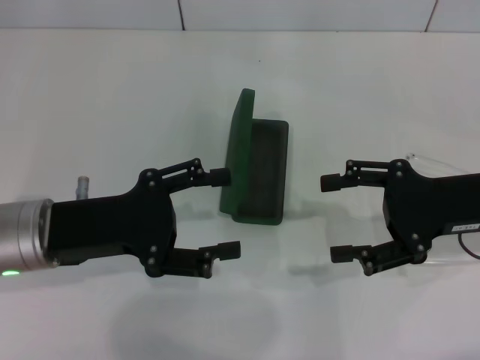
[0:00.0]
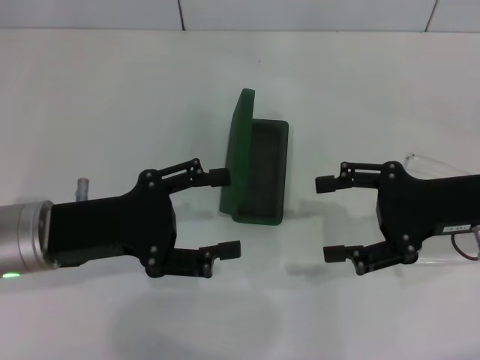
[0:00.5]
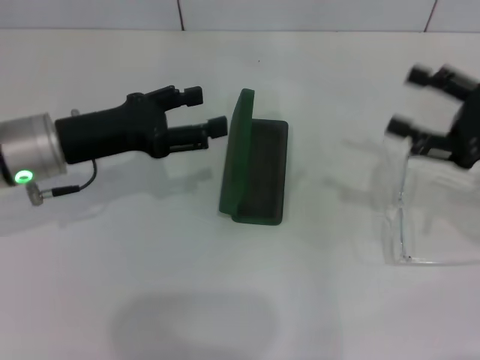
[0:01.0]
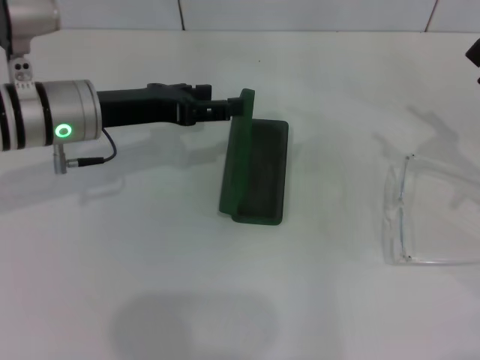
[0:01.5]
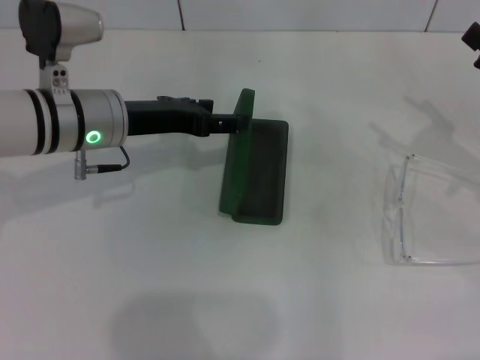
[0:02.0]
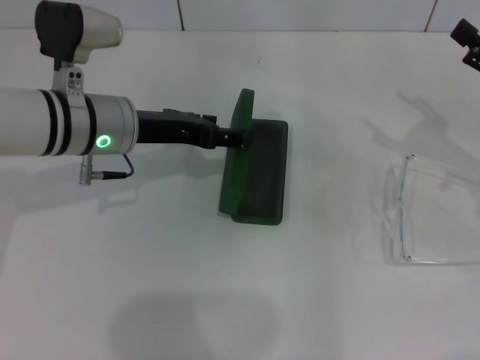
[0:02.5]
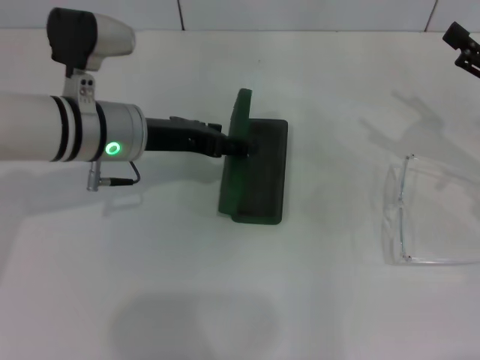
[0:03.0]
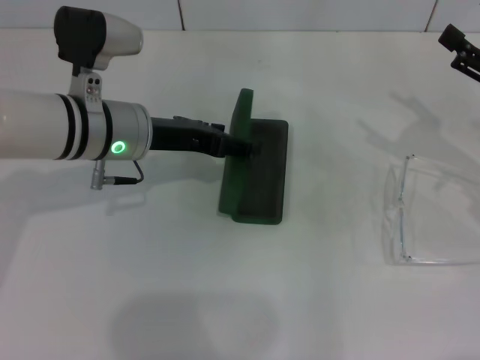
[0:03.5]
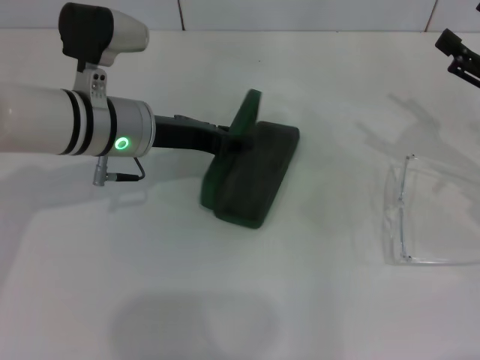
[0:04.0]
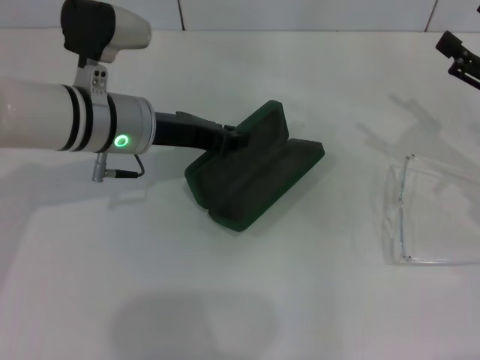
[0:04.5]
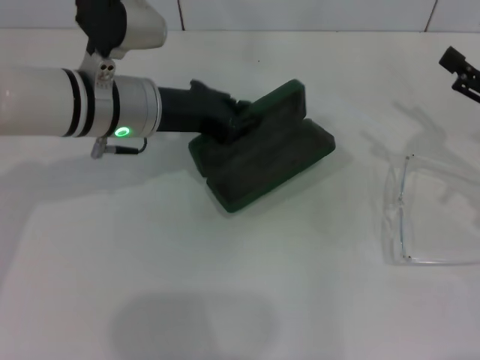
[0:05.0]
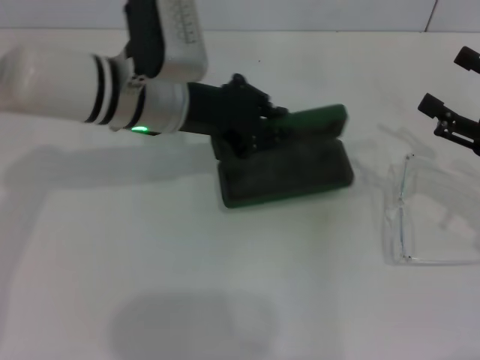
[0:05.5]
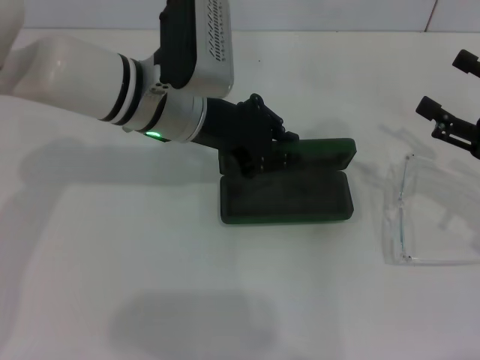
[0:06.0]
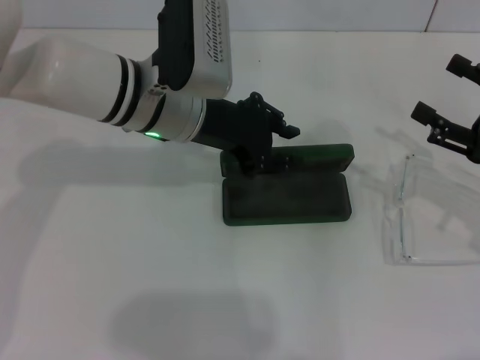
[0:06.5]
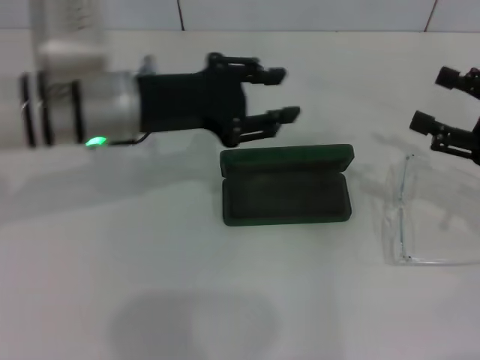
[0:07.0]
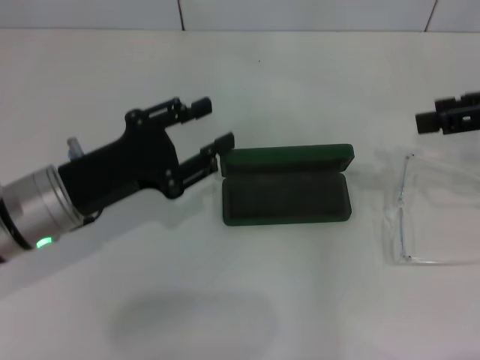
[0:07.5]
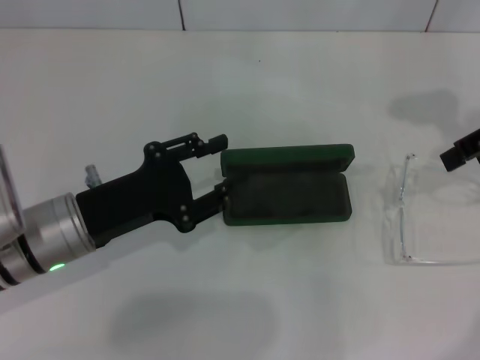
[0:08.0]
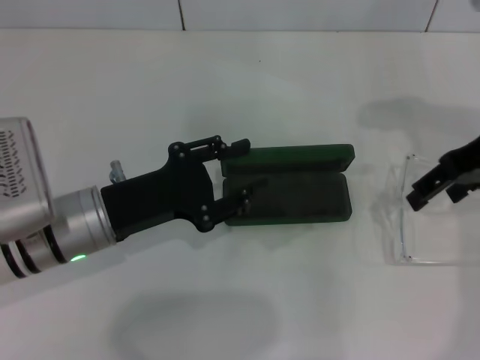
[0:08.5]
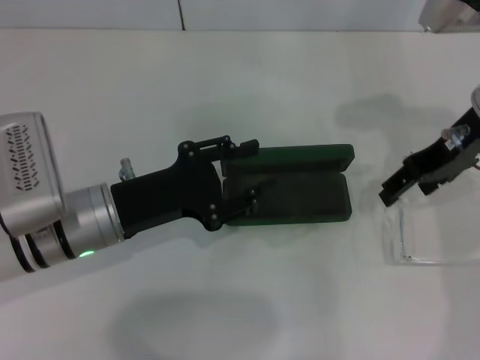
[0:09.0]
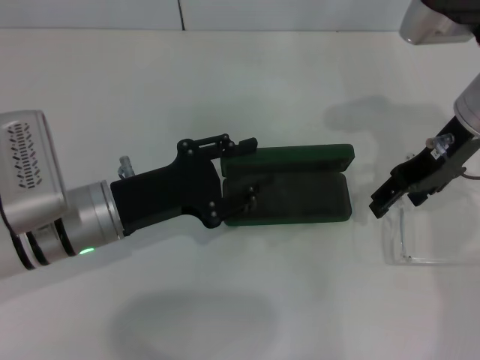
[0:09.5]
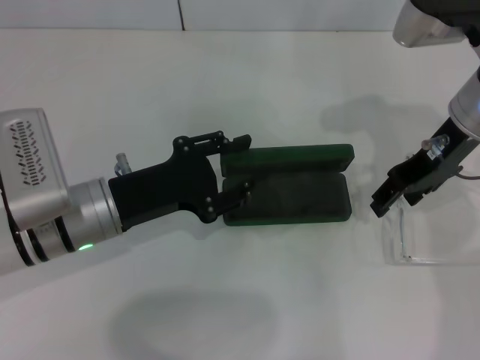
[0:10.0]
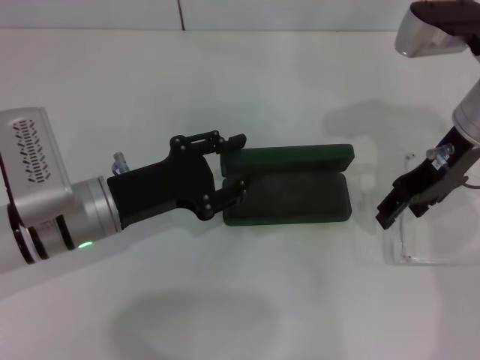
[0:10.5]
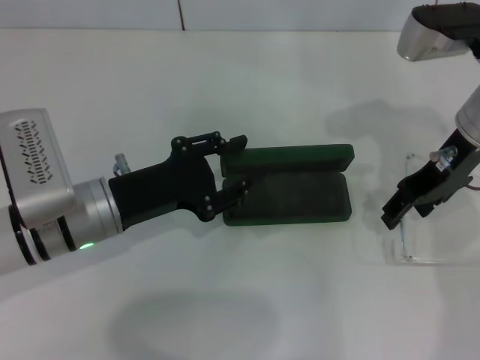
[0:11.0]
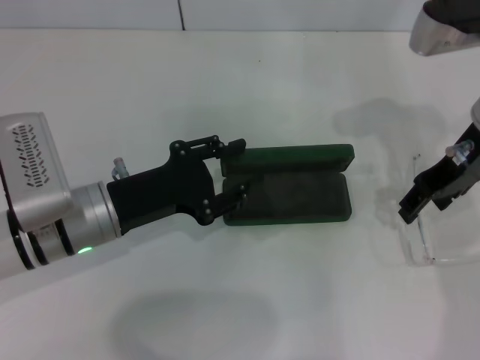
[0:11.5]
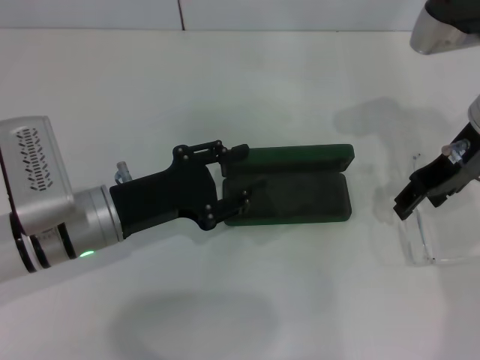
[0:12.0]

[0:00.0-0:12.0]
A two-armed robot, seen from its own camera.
Step, 0:00.0 to 0:04.5: Grab the glasses case with your left hand.
Step, 0:05.0 to 0:06.0: Place the glasses case in the center of the table with your left hand.
0:00.0 to 0:02.0: The right gripper moves to the right, some 10 cm. The left gripper is displaced forward and to the right by some 10 cm.
0:02.0 to 0:04.0: The grippers move only a little.
0:04.0 to 0:06.0: The left gripper goes about 5 cm to the right, and closes its fingers.
0:06.0 to 0:08.0: The right gripper moves upward and forward, about 15 cm, while the left gripper travels backward, to the left and downward by some 15 cm, and opens up.
0:08.0 to 0:10.0: The right gripper shifts some 10 cm to the left and downward.
0:10.0 to 0:12.0: The grippers make only small movements.

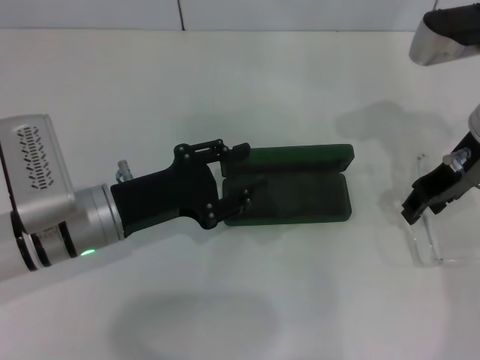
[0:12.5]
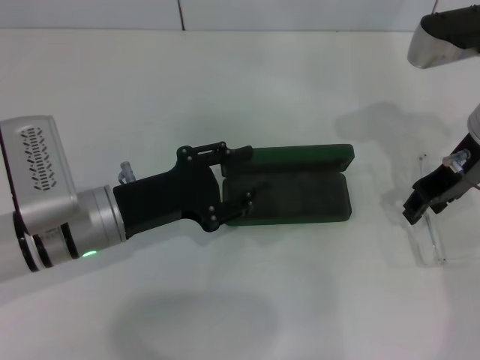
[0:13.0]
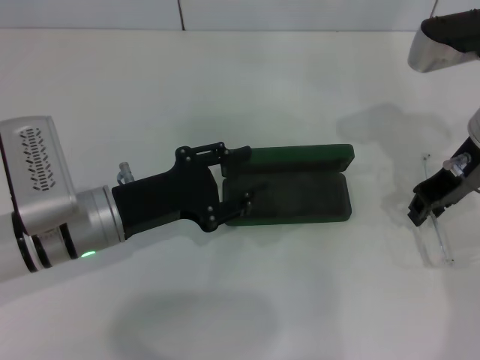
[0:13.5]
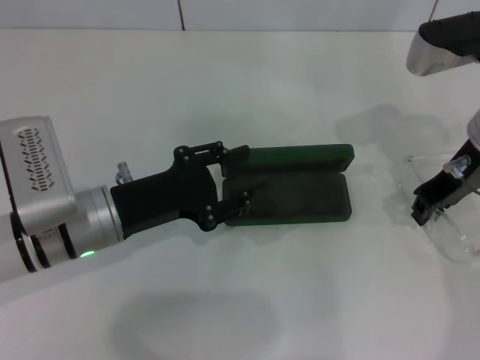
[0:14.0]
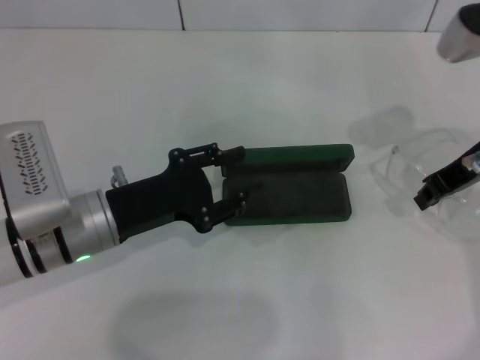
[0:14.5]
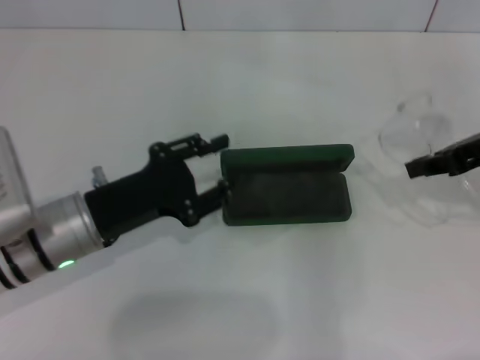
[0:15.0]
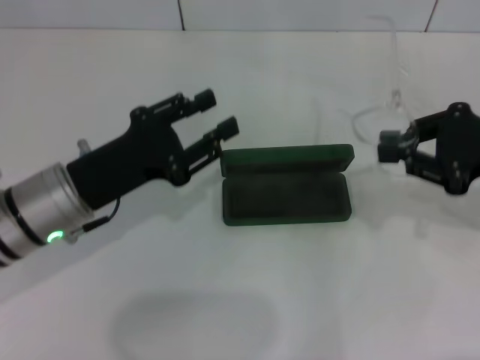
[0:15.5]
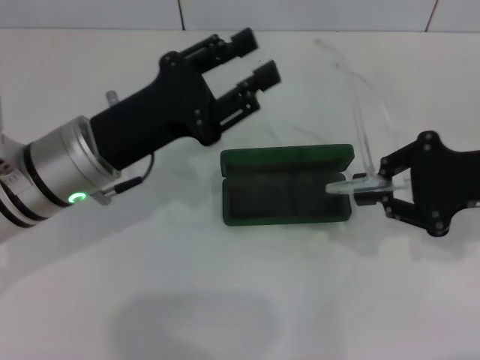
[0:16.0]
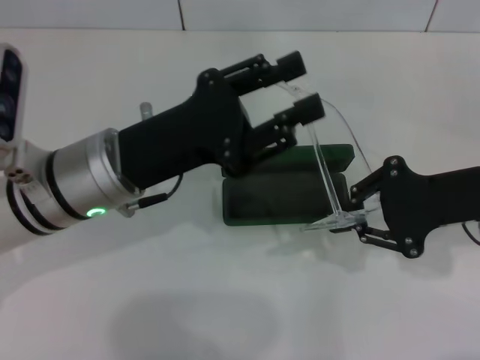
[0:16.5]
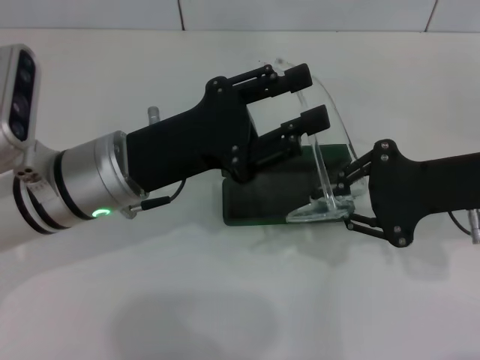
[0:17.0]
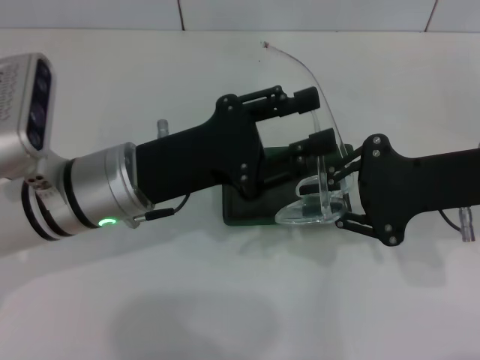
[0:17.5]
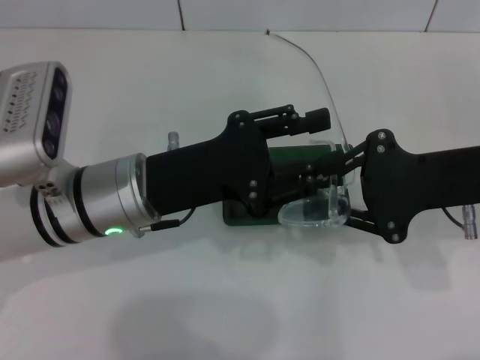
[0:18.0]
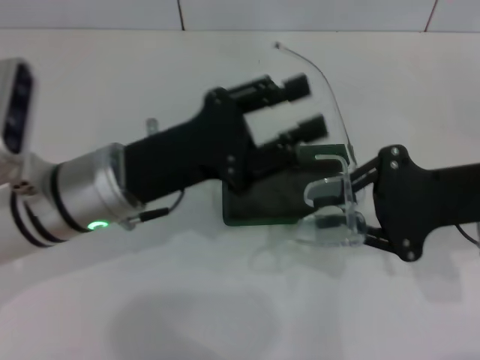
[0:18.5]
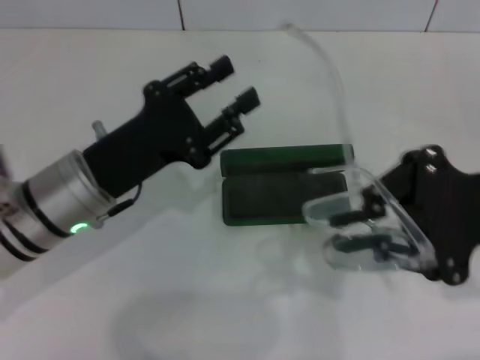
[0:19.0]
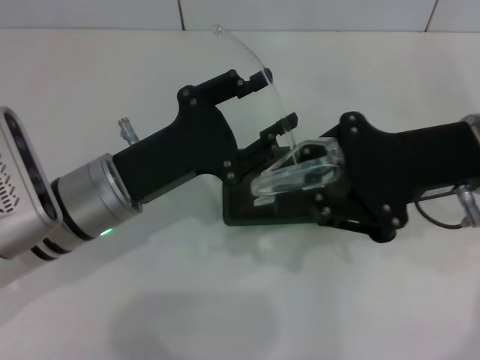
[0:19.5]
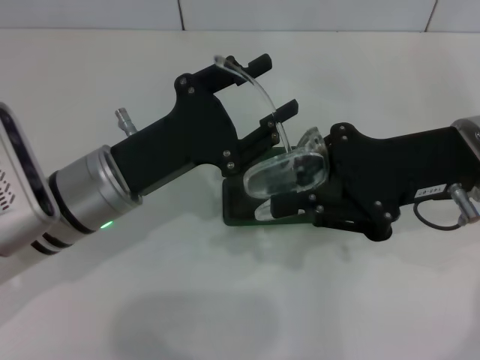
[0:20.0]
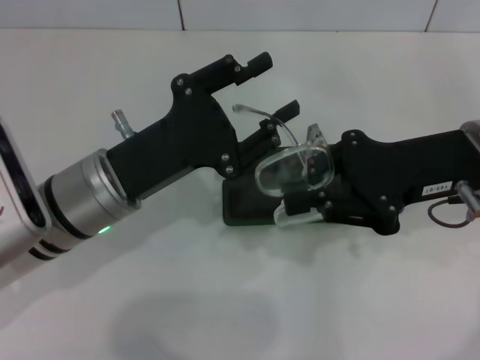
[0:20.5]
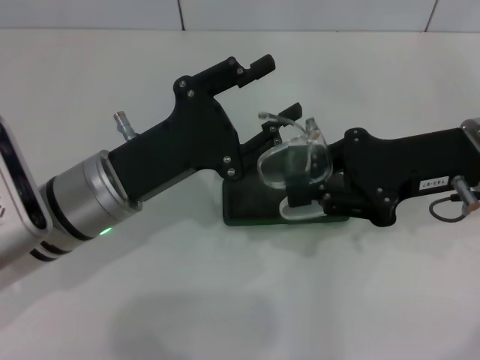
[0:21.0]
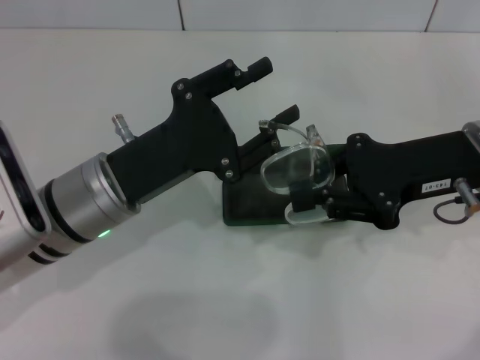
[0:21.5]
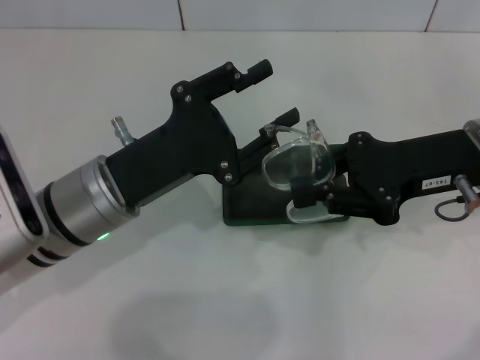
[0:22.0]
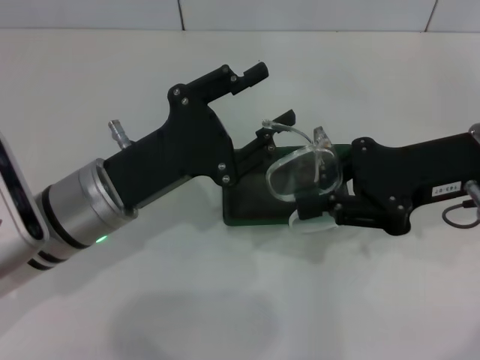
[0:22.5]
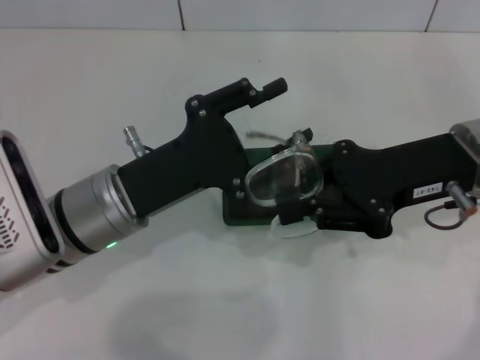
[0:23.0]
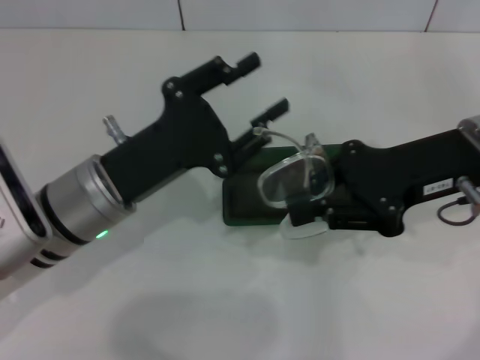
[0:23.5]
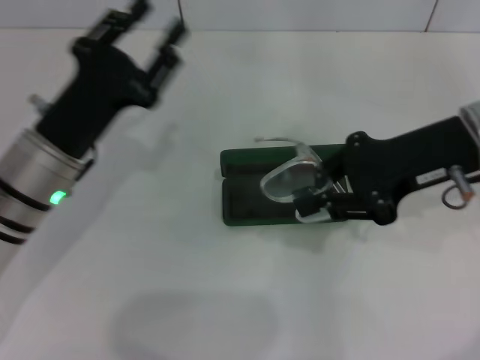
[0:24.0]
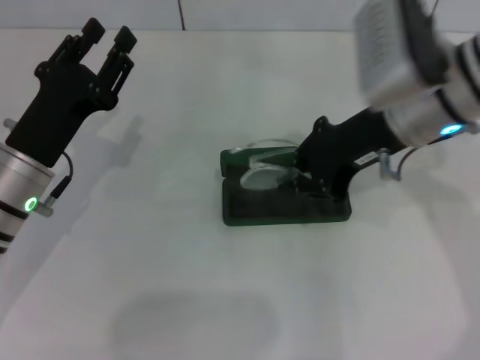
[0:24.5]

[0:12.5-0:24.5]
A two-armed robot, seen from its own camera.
Step, 0:14.0 to 0:22.0: Fold the frame with your left hand.
0:12.5 to 0:14.5: The right gripper closes up.
0:14.5 to 0:16.5: The right gripper shifts about 5 cm backward; the left gripper shifts roughly 5 cm upward.
0:16.5 to 0:18.5: The grippers make only small movements.
0:20.5 to 0:22.5: The grippers move only a little.
0:22.5 to 0:24.5: Both grippers travel together to the left, approximately 5 cm.

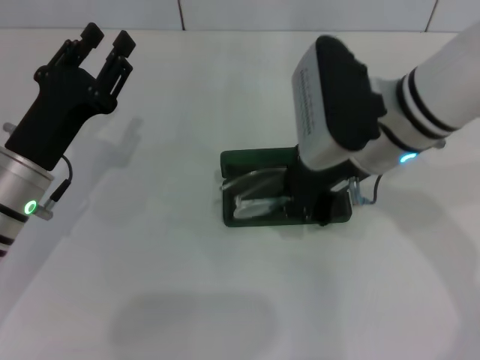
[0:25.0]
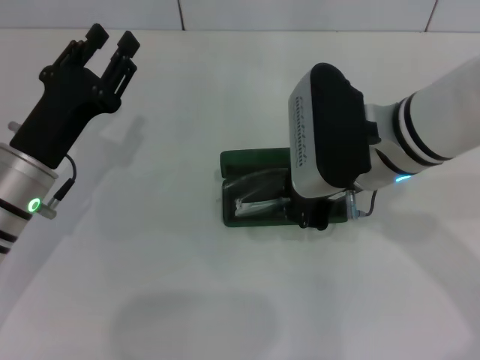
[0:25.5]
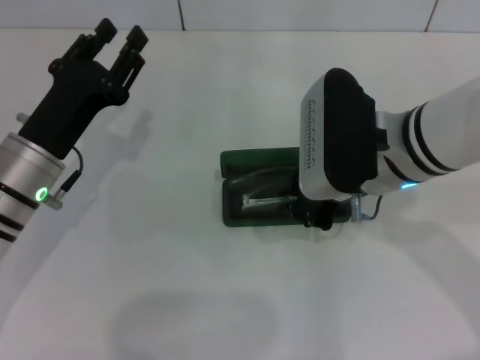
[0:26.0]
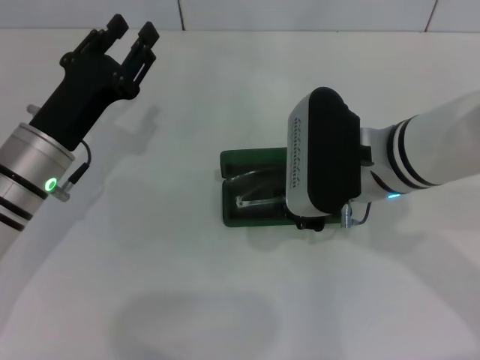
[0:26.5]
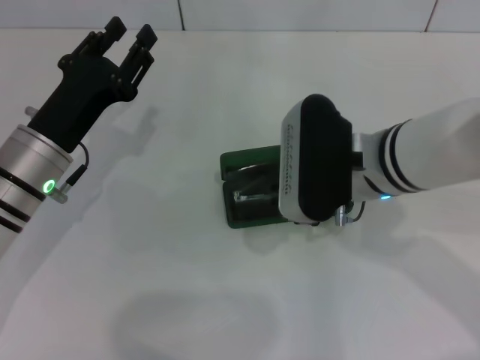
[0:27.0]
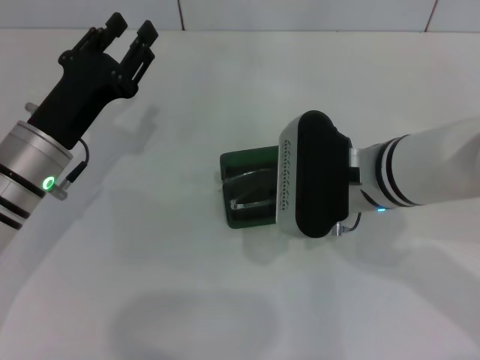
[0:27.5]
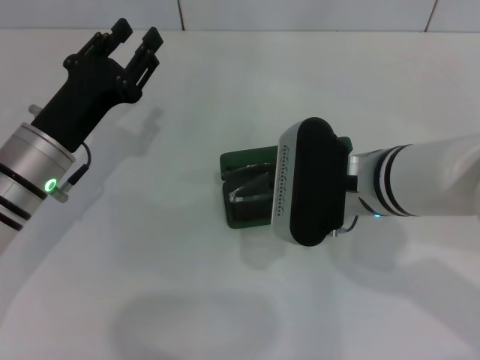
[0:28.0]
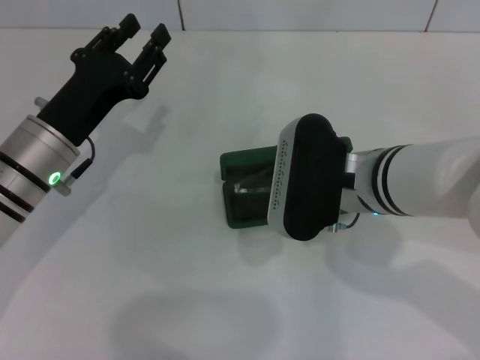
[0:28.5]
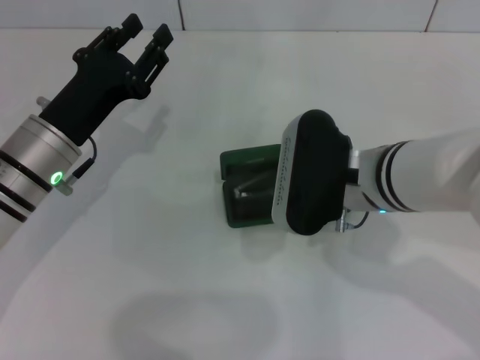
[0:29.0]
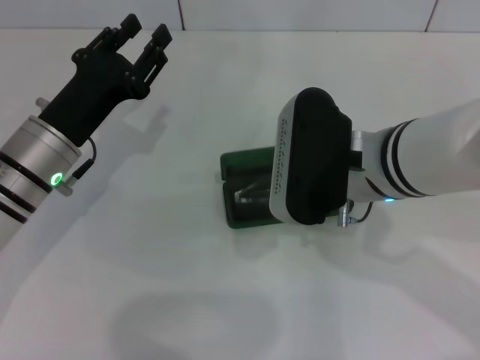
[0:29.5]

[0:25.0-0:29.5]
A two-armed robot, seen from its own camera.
0:27.0 to 0:29.5: The right gripper opens.
